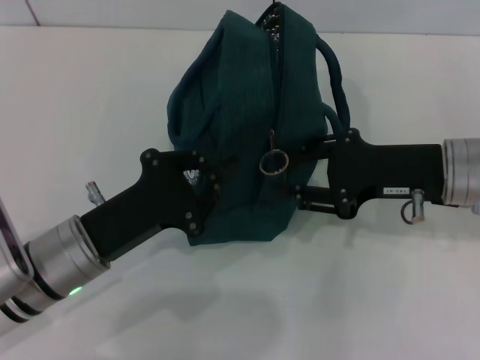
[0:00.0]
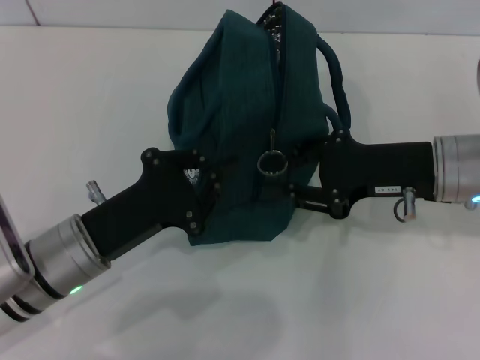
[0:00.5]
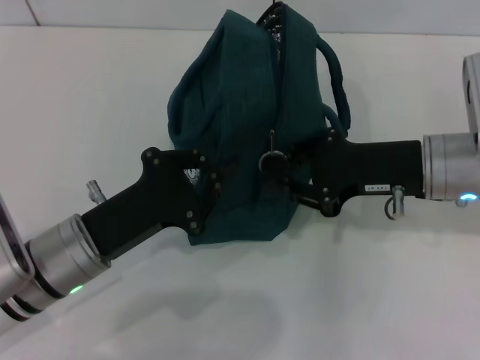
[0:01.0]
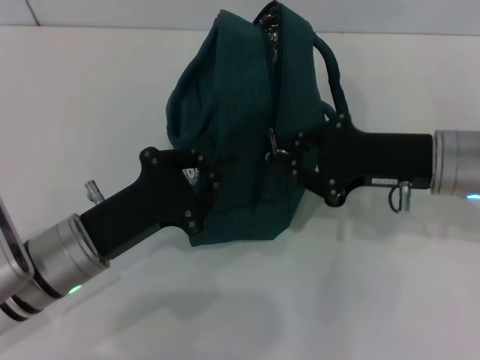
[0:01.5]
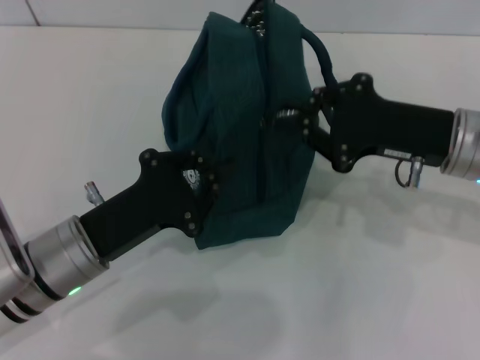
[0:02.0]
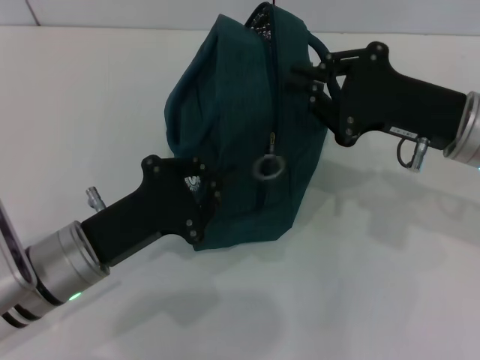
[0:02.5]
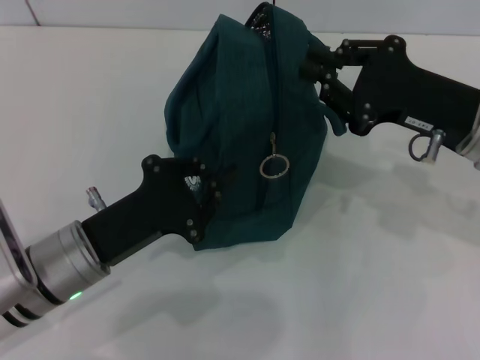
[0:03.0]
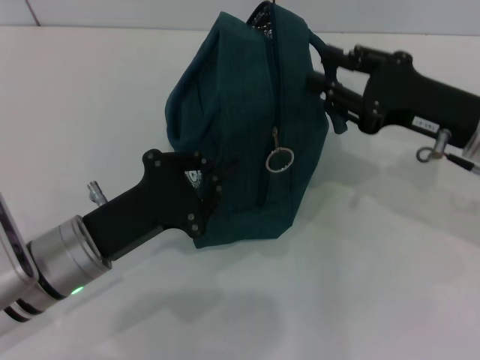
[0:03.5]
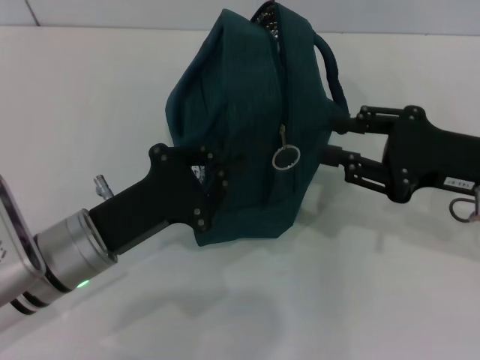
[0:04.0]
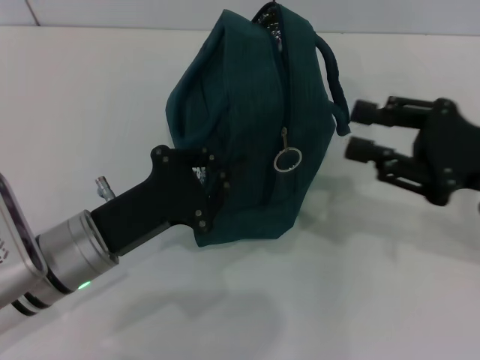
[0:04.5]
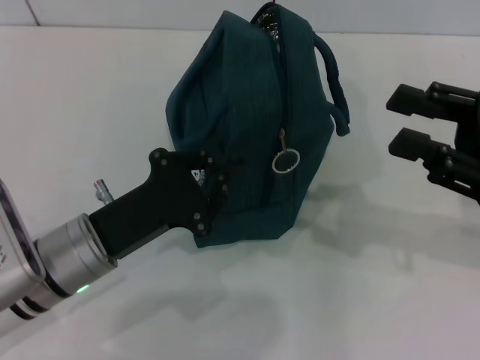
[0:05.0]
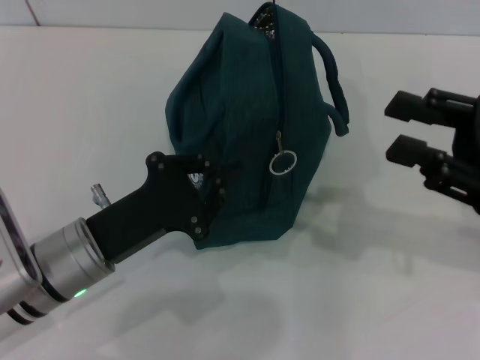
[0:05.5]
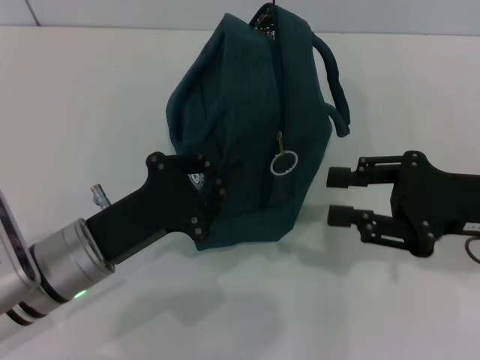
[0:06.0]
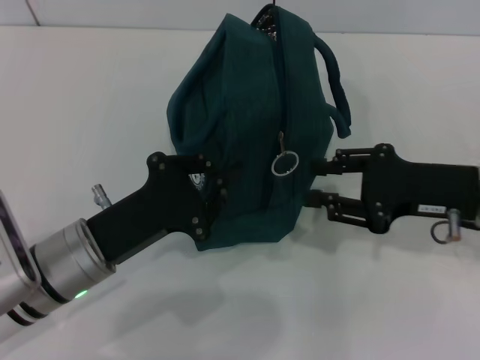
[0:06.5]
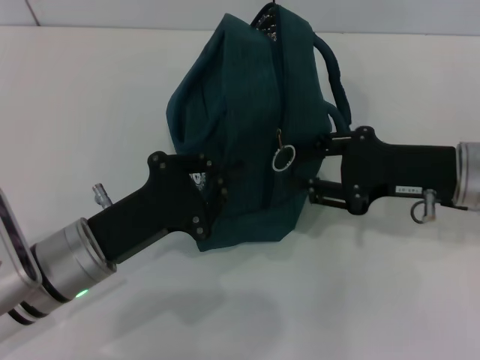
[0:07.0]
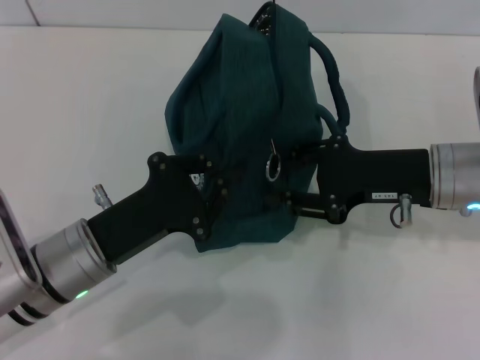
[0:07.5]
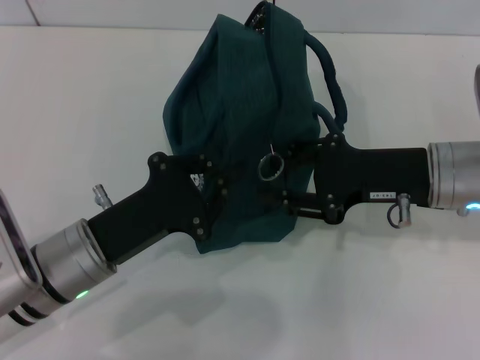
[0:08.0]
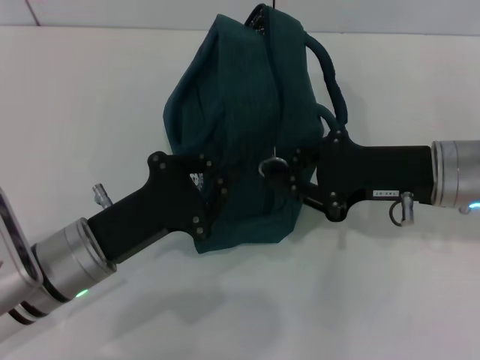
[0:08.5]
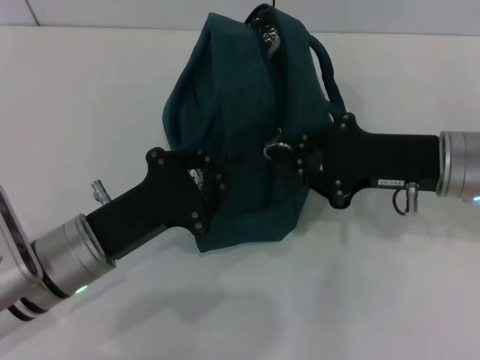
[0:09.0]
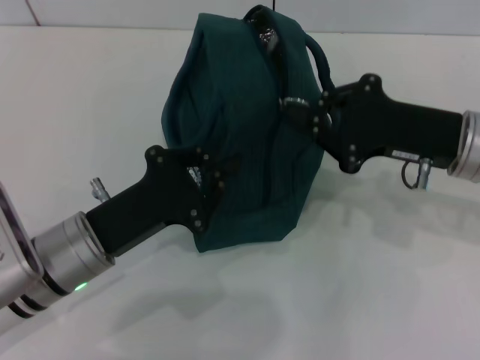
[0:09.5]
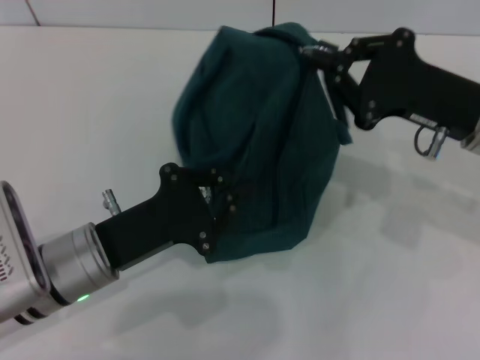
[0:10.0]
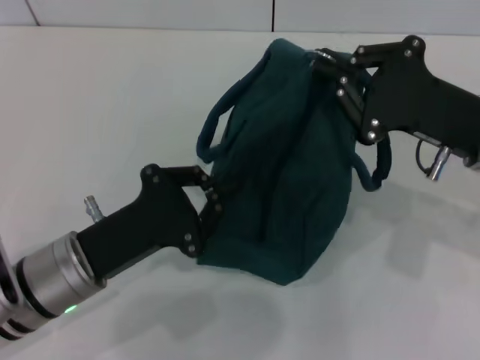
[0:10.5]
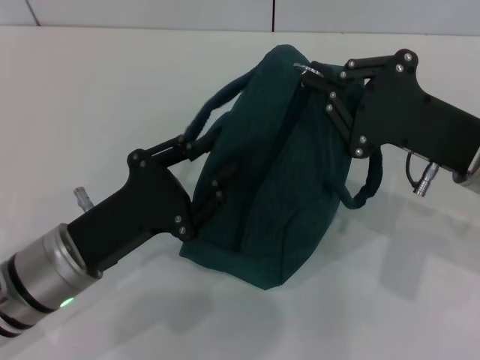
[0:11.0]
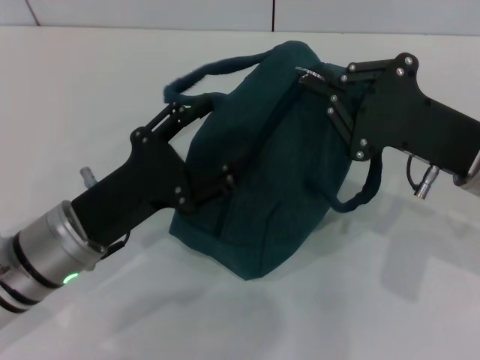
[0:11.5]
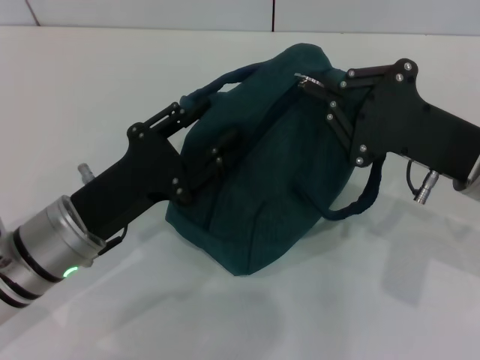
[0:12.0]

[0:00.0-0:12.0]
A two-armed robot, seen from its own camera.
0:00.0 to 0:02.0: The right gripper closes.
0:02.0 to 0:04.0: The right gripper shifts by roughly 5 cm, and opens its fingers.
0:04.0 to 0:06.0: There are only small adjustments of the grippers.
0:06.0 to 0:08.0: The right gripper moves to the left, roughly 5 cm.
0:08.0 to 0:10.0: The right gripper closes.
0:10.0 to 0:12.0: The left gripper opens up.

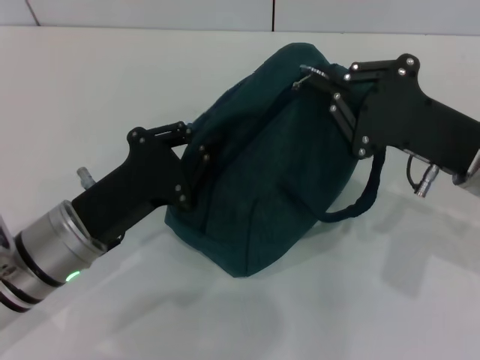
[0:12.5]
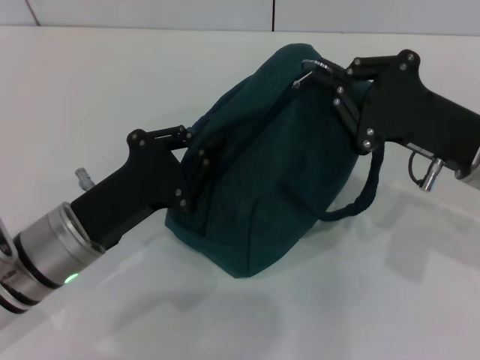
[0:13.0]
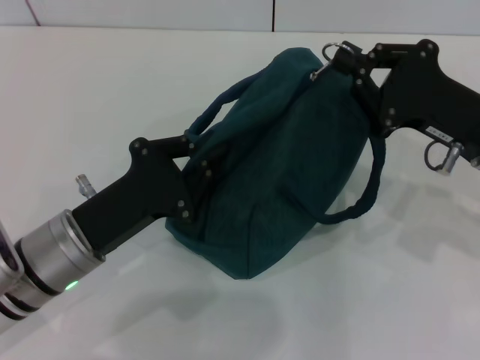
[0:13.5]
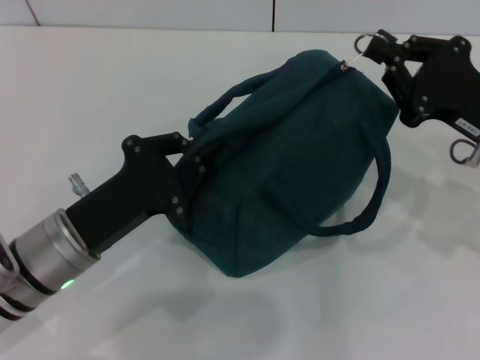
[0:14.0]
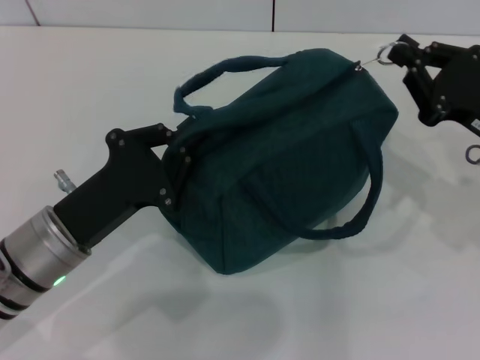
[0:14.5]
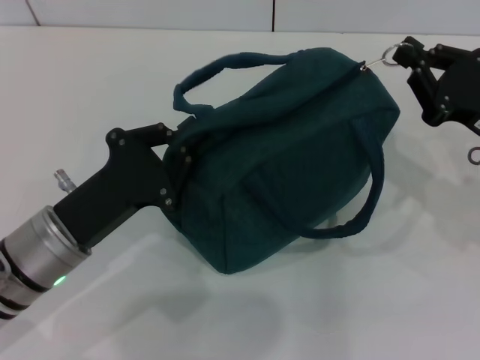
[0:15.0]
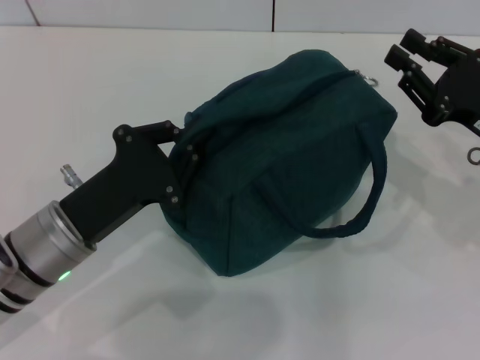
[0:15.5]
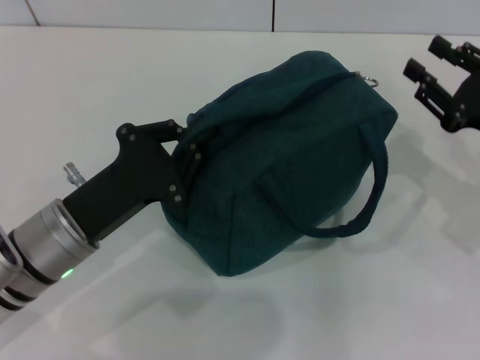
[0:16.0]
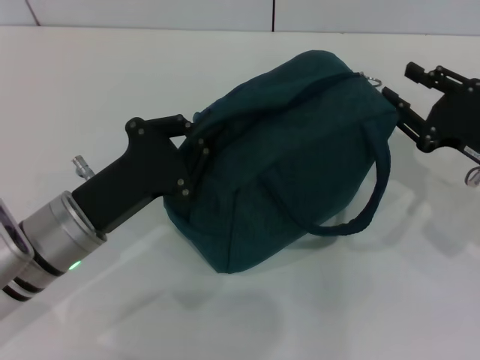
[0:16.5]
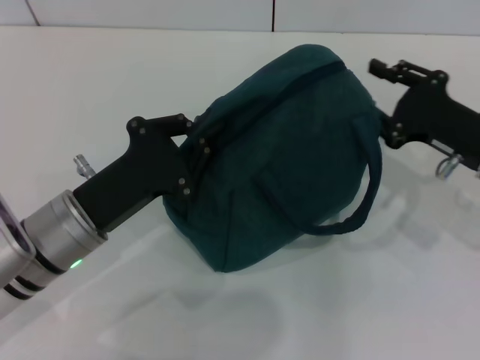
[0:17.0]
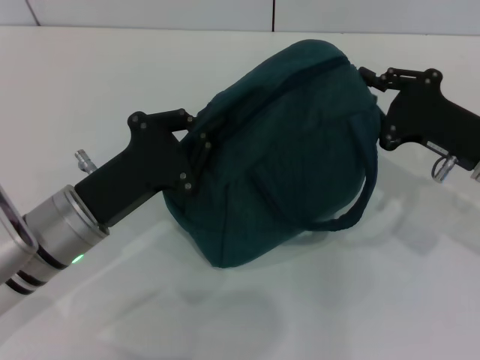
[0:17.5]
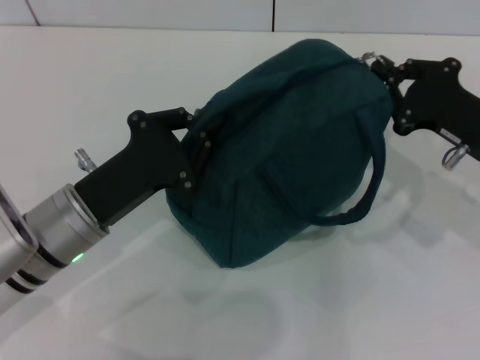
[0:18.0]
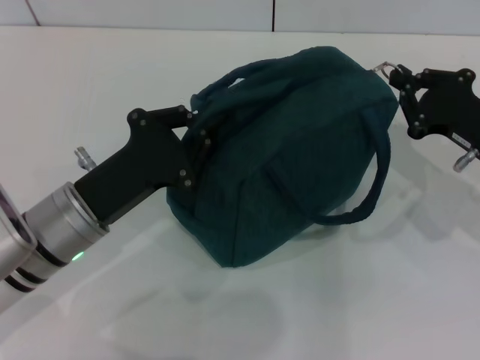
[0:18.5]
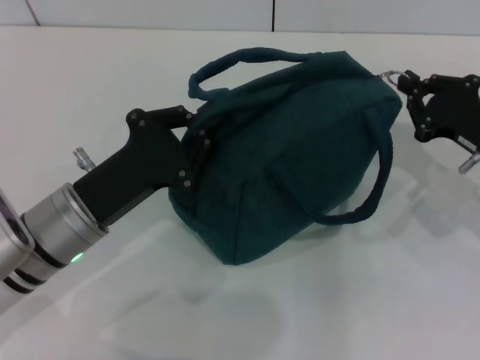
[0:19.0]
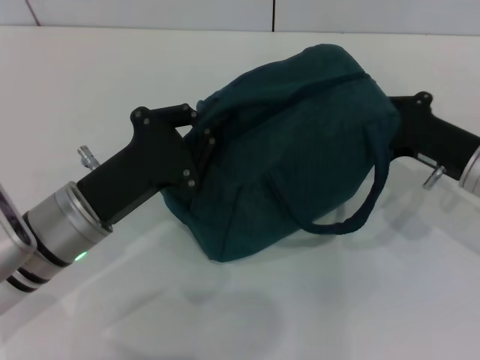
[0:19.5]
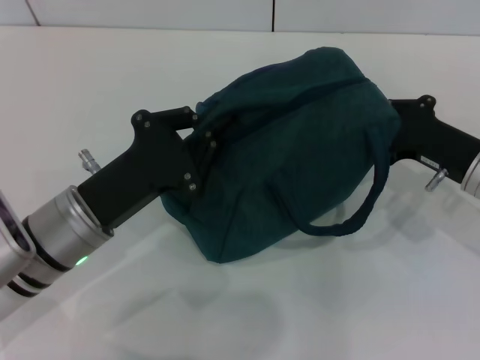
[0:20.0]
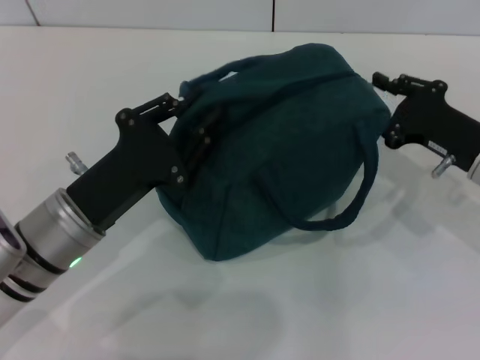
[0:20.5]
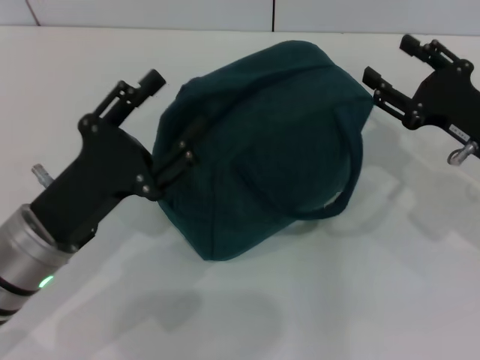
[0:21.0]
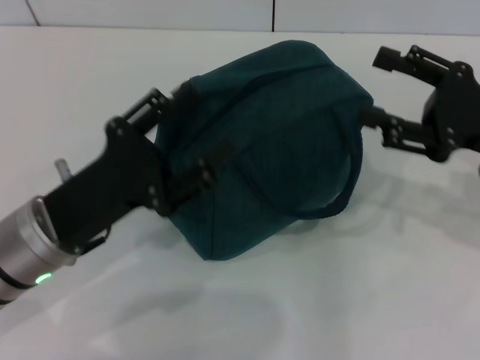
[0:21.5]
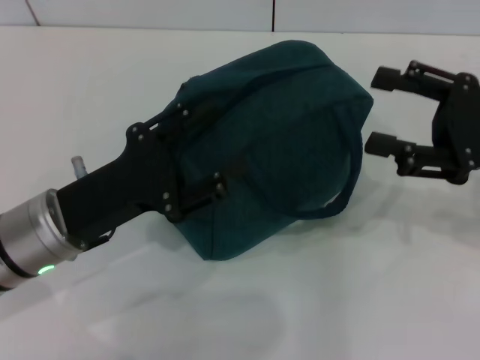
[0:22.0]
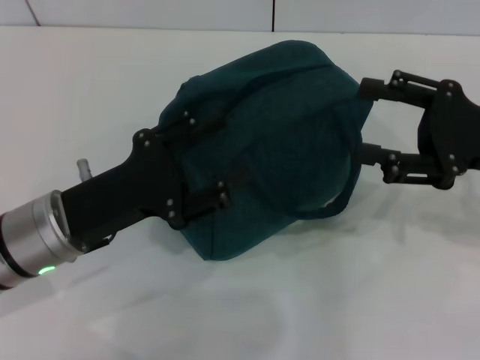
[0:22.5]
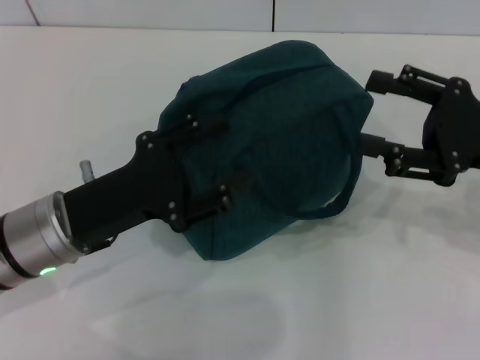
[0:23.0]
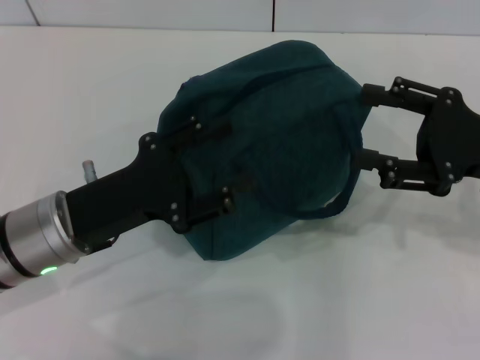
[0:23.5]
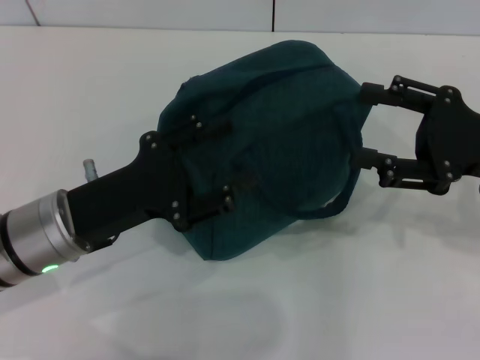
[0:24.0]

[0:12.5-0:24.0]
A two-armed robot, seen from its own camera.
Step, 0:12.5 to 0:20.5: Zip up the lunch bag with your right hand.
0:12.5 to 0:14.5: The right gripper heads to the right, covering about 5 cm.
0:14.5 to 0:16.5: The right gripper opens its fingers.
0:16.5 to 0:18.5: The right gripper closes its fingers.
0:18.5 to 0:20.0: The grippers move only a little.
0:20.0 to 0:22.0: The left gripper opens its fingers; the right gripper shifts approximately 10 cm upward, and opens its fingers.
0:22.0 to 0:24.0: The two grippers keep their place.

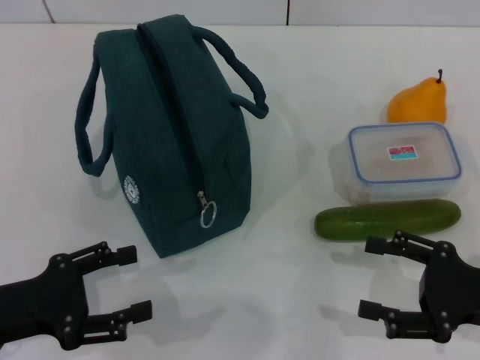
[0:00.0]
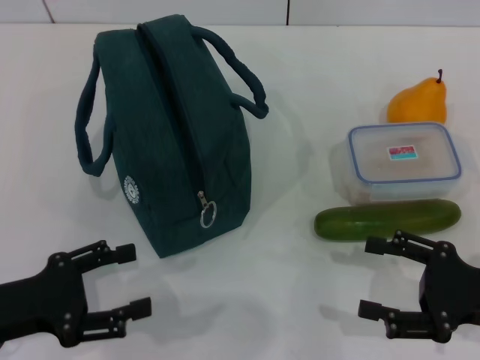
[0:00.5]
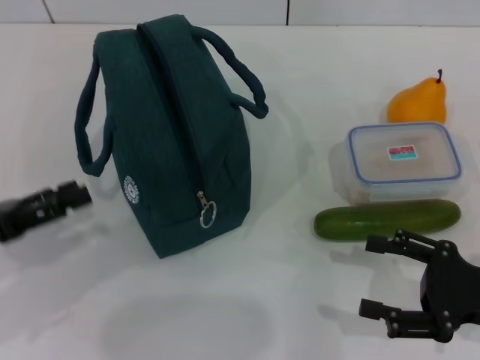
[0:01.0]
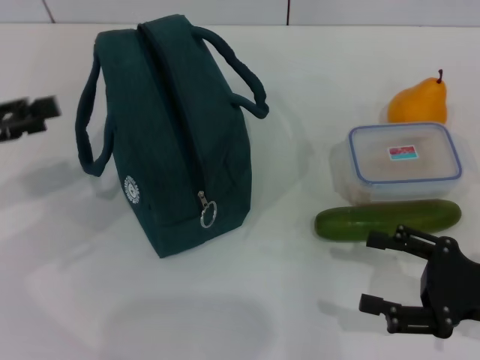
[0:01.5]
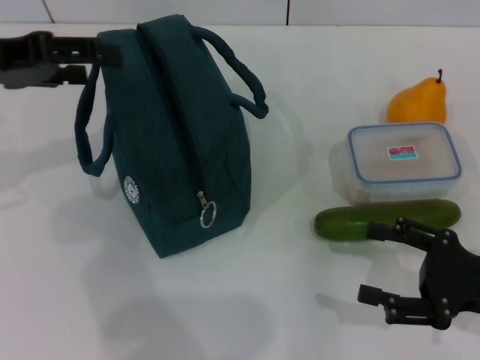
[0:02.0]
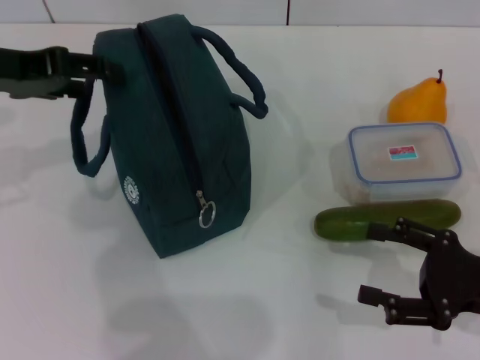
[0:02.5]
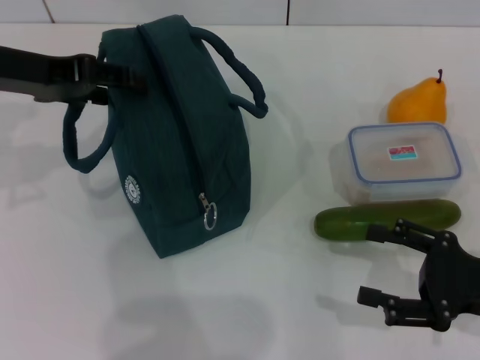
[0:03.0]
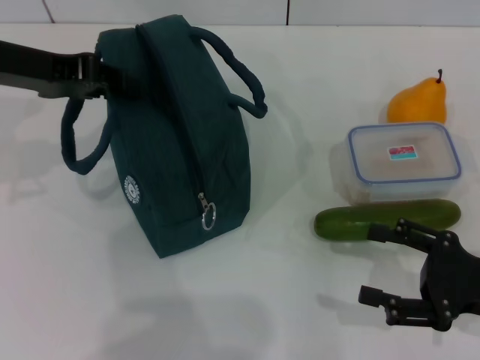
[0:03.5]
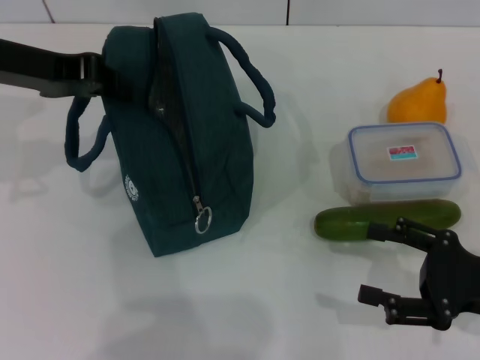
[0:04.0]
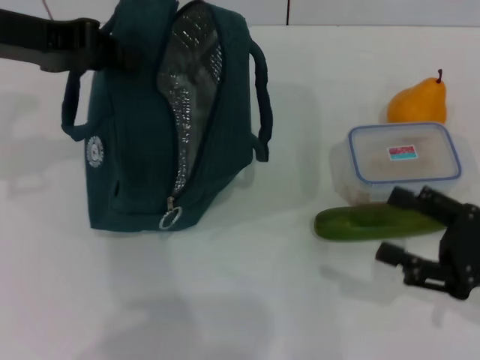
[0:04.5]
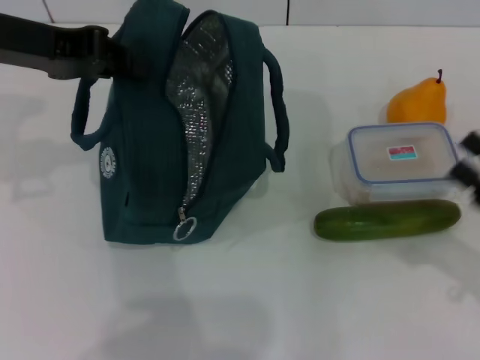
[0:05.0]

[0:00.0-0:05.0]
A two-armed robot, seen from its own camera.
Step, 0:00.0 to 0:04.0: Hold the lunch bag with your left hand.
0:00.0 to 0:02.5: The left gripper moves upward and forward, approximately 20 cm.
0:02.5 to 0:05.0: The left gripper closes its fingers.
